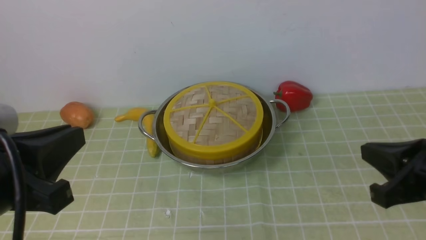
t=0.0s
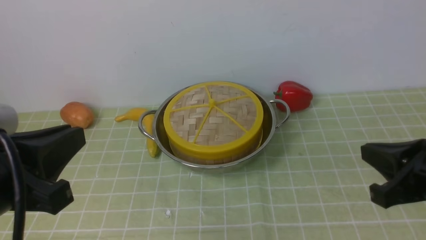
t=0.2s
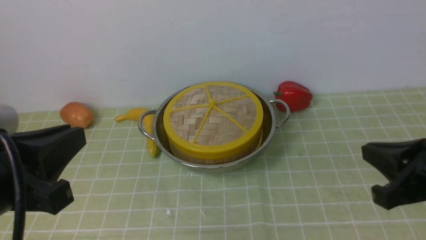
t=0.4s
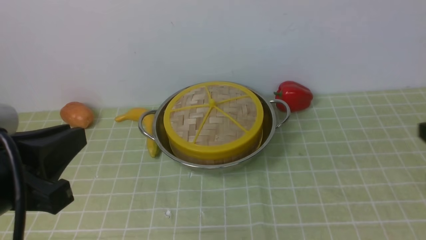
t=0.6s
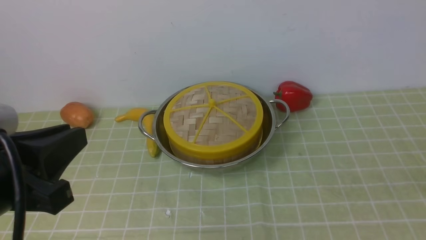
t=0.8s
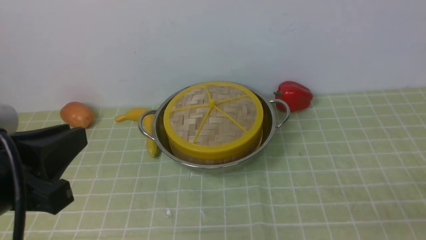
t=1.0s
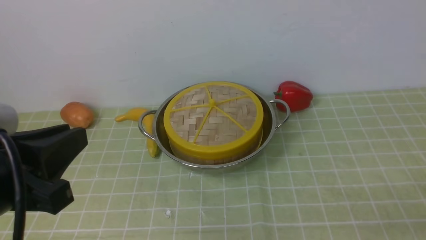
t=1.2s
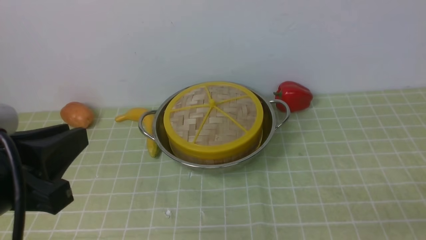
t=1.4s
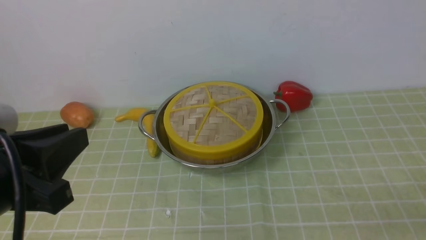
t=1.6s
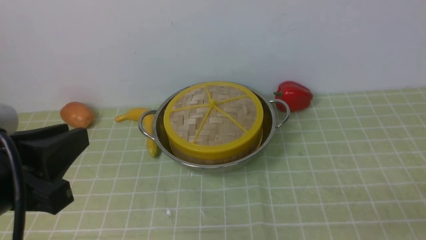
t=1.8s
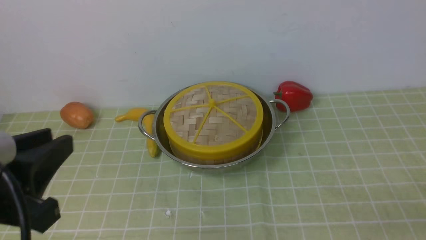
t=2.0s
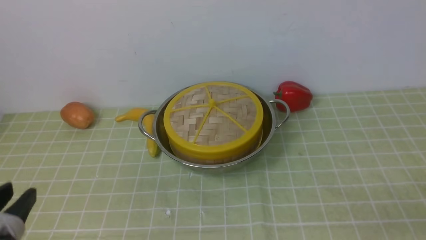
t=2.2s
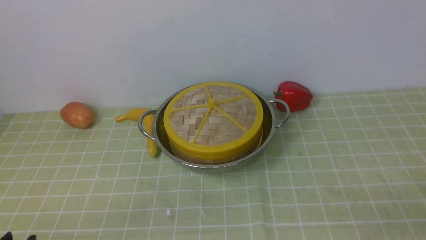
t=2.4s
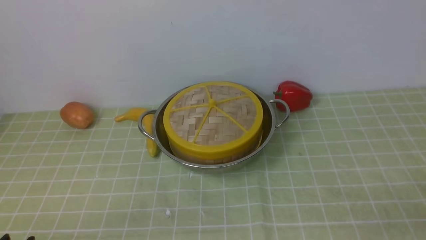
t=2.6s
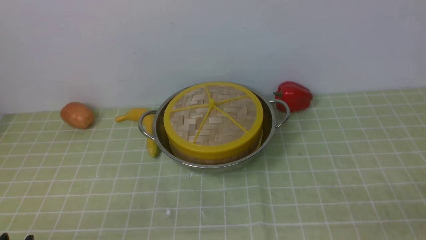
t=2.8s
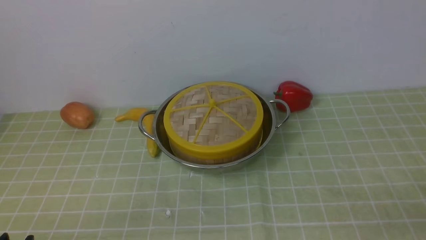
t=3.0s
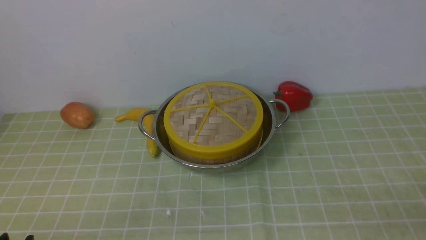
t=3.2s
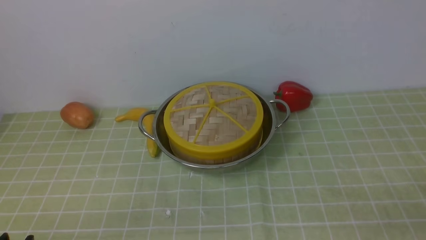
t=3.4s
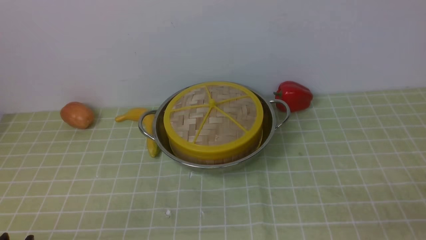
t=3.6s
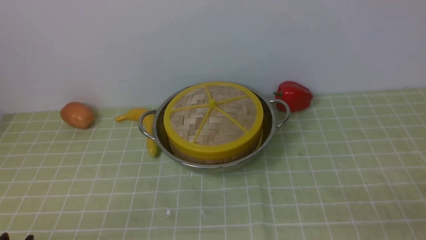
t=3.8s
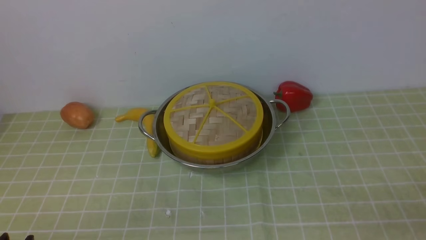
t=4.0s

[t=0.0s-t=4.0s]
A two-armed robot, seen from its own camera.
Task of the whole recording: place the steamer in the pot on the green tablecloth, and put the lid on the steamer.
t=0.0s to t=1.4s: The right gripper shifts roughly 15 cm backward, to the right and downward, and opens up.
t=1.4s to t=2.6s: The left gripper goes about 15 cm downward and backward.
t=2.6s to t=4.0s: Neither gripper changes place.

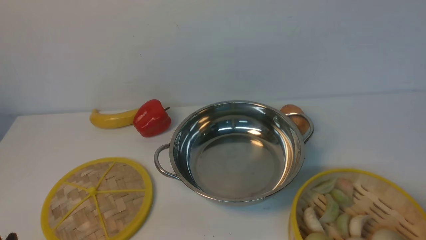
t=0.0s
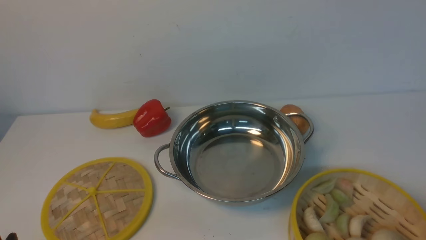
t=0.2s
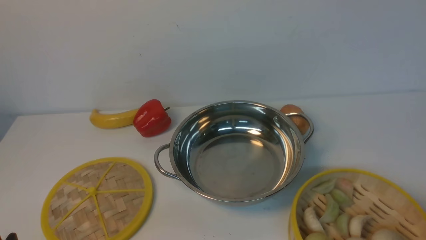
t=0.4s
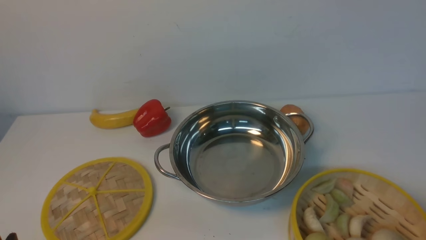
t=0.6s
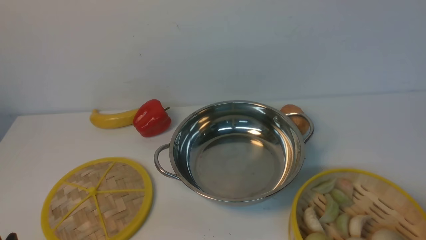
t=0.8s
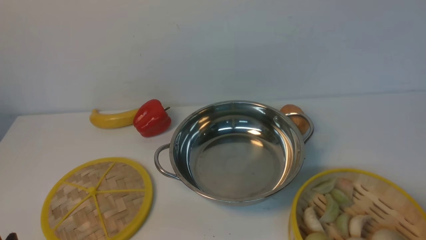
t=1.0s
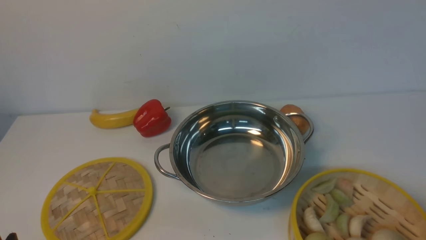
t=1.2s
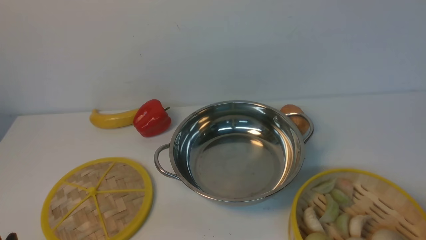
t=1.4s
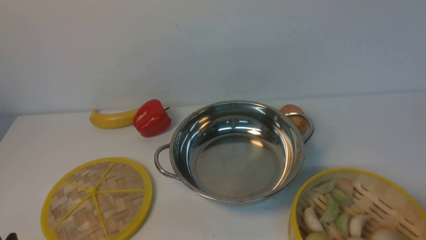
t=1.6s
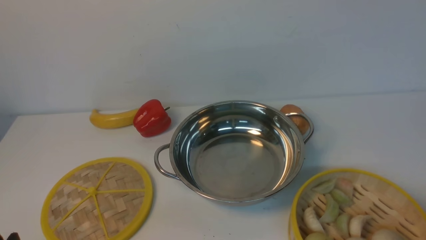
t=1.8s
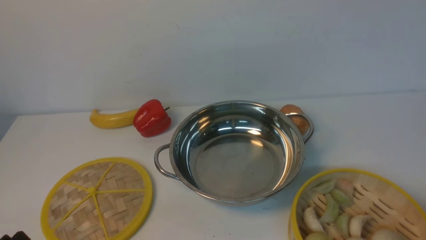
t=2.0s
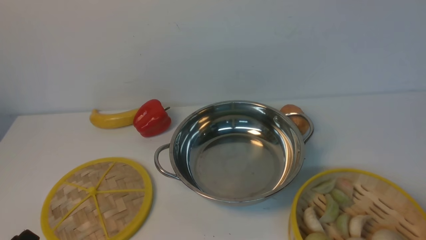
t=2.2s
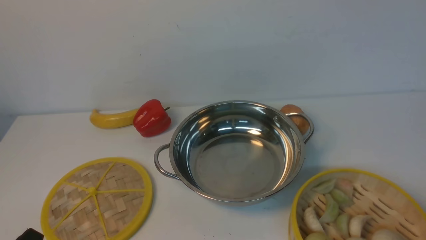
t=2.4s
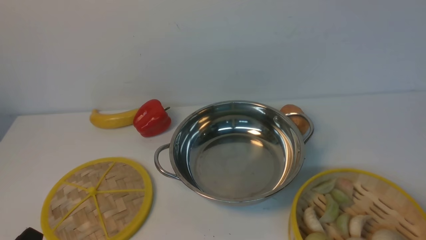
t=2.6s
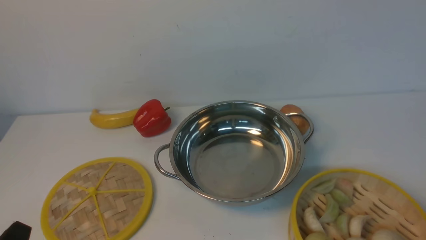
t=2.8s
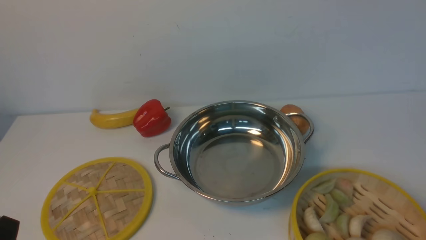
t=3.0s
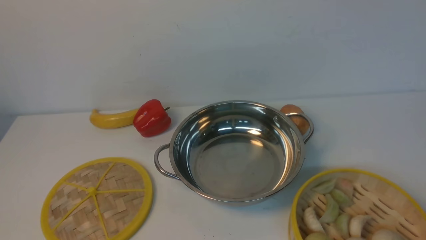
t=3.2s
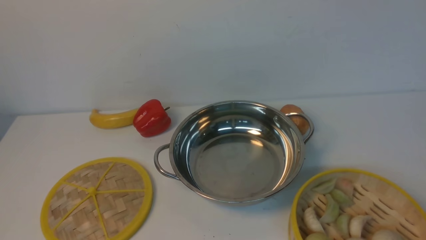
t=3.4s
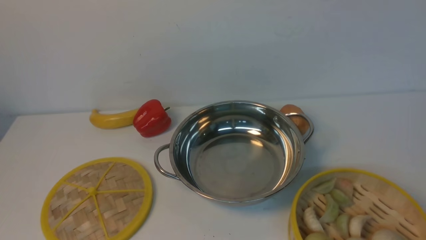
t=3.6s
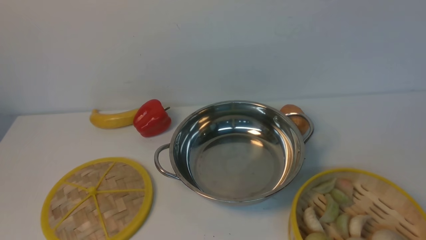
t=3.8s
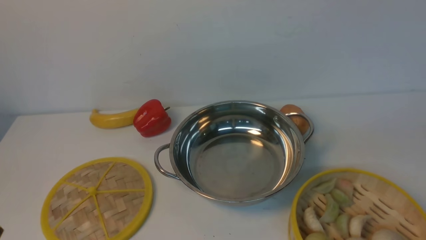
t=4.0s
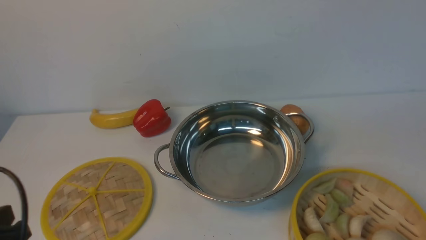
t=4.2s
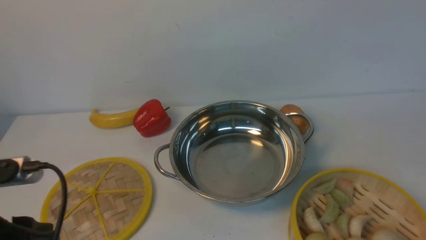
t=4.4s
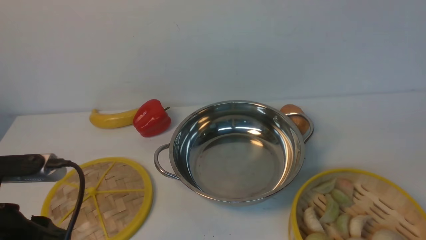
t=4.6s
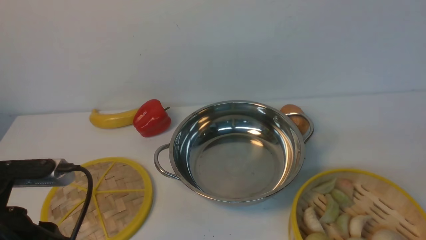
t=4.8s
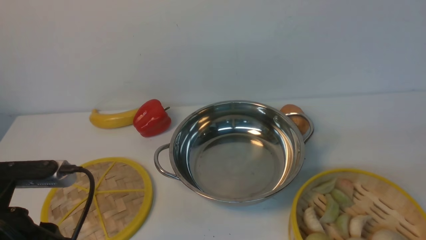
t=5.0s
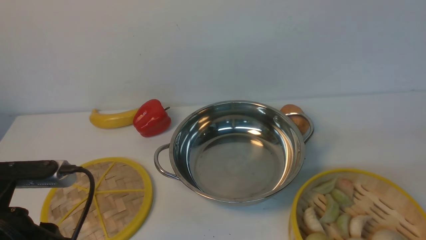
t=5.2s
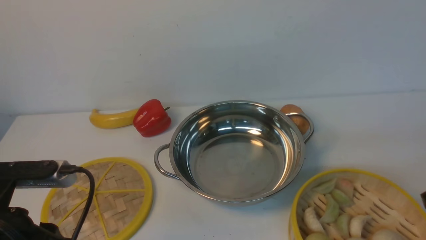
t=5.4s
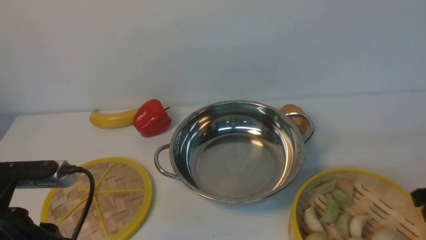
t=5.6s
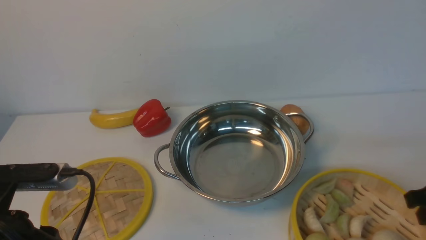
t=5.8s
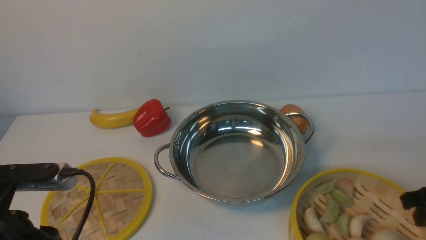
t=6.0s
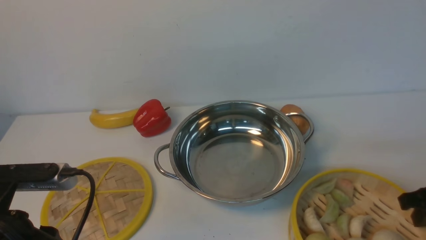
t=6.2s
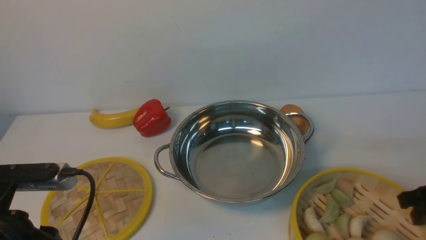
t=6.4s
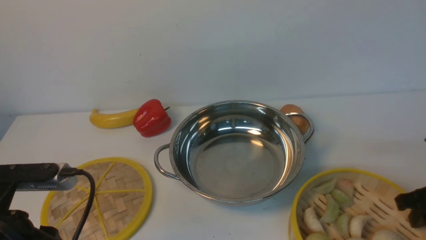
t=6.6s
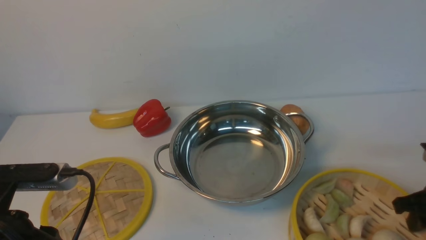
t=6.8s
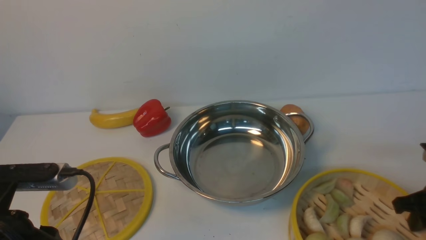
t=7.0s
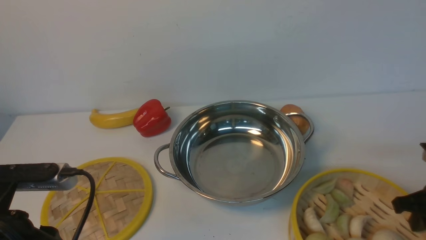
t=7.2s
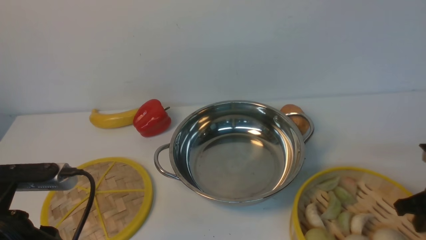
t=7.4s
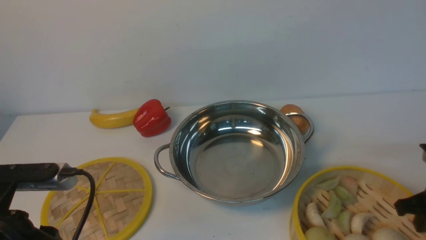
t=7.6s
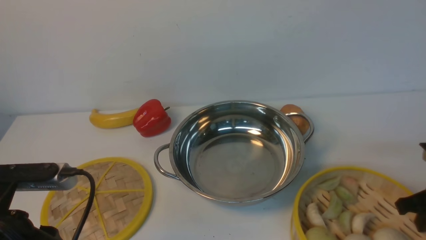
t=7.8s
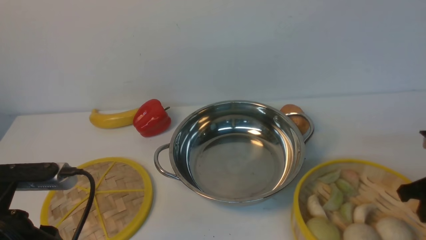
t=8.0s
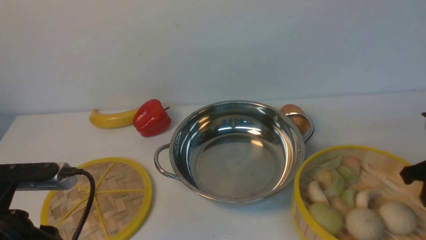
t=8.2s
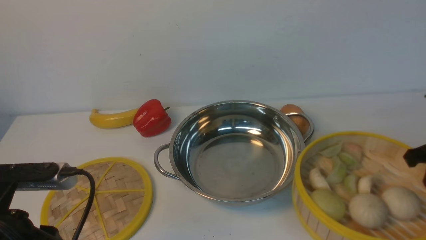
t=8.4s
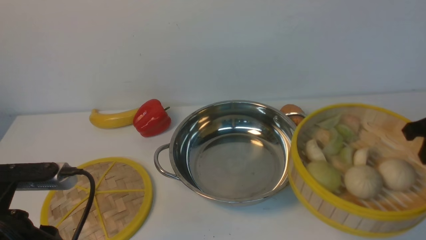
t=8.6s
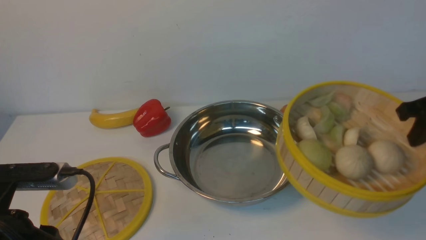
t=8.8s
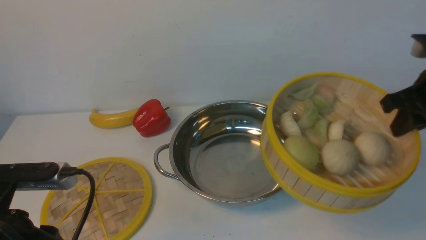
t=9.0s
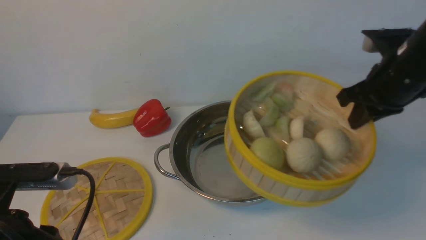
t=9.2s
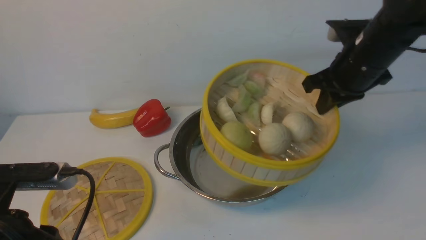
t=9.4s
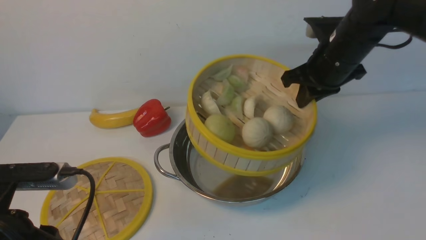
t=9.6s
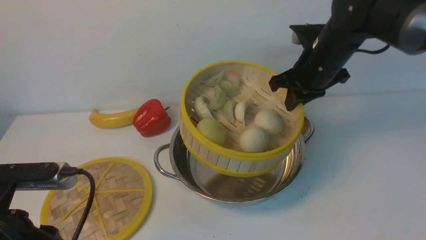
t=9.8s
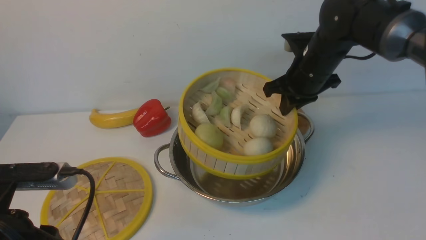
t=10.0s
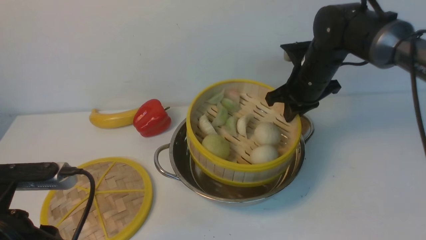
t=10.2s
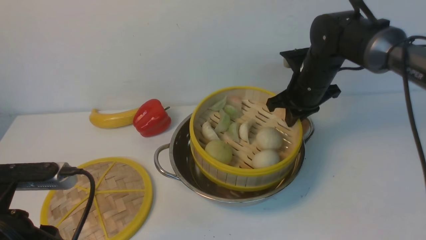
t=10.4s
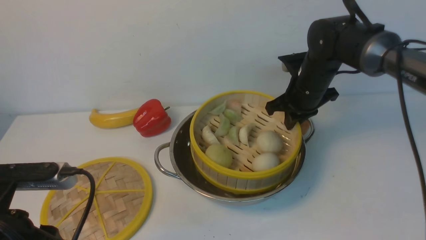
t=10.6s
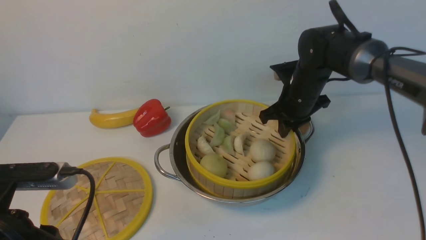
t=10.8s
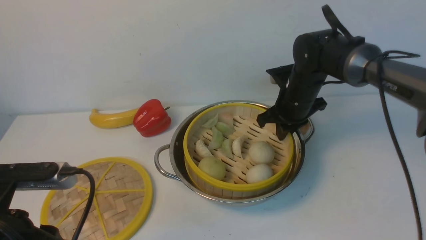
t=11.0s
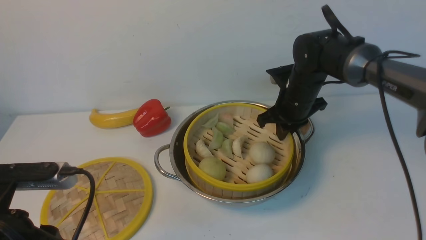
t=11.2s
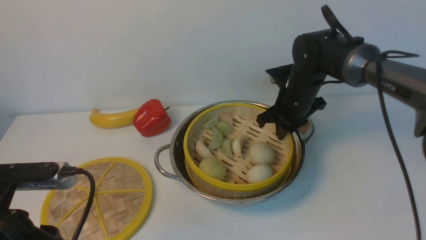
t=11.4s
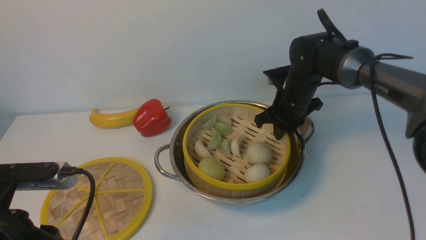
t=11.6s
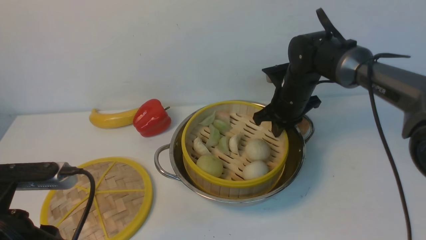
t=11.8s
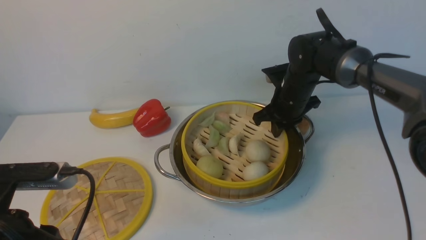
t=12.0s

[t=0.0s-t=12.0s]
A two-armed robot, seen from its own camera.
Task of the whole recording: place the steamer in the pot on the white table, and put the lid on the steamer.
Step, t=0.0s to t=8.4s: use the right arm to lift the steamer closest to it.
t=0.0s to t=1.6s: The two grippers keep their place.
t=3.0s to t=4.4s: The left gripper moves forward and upward, about 10 cm.
t=4.4s to t=6.0s: The right gripper moves downward and forward, about 15 cm.
t=6.0s to t=7.6s: The right gripper closes.
t=7.6s to t=9.0s: The right gripper goes approximately 15 cm upward and forward.
t=9.0s to t=10.4s: The right gripper shifts about 20 cm to the left, forward and downward.
t=10.4s to t=12.0s: The grippers make only small movements.
